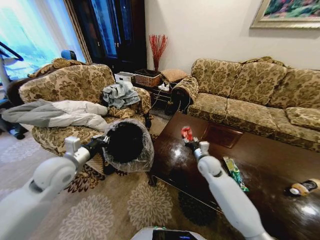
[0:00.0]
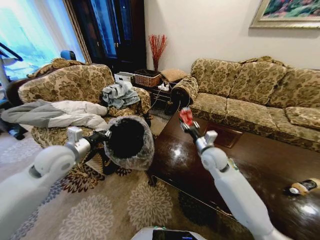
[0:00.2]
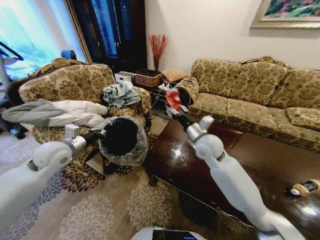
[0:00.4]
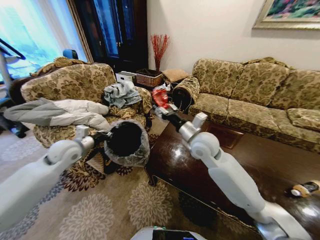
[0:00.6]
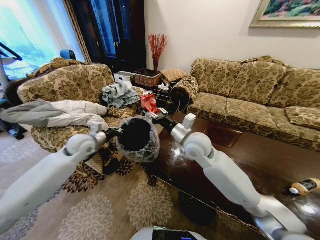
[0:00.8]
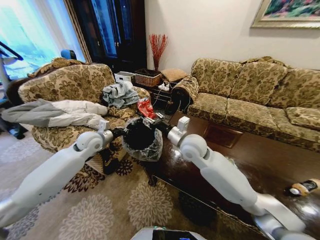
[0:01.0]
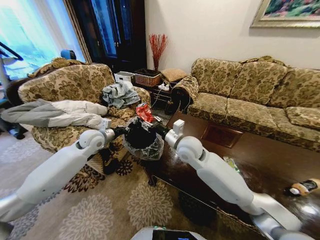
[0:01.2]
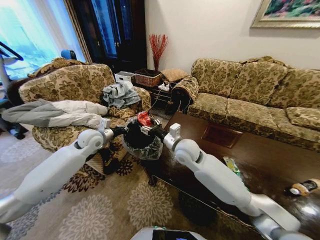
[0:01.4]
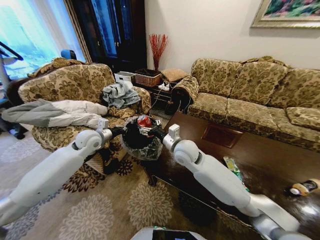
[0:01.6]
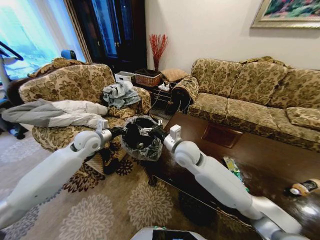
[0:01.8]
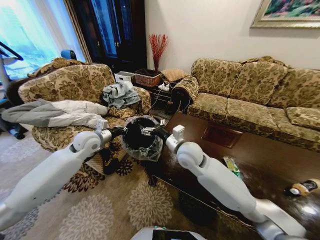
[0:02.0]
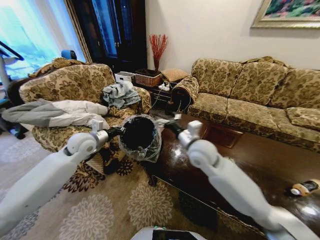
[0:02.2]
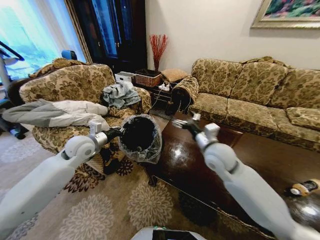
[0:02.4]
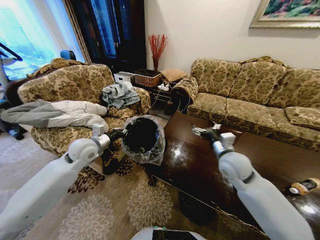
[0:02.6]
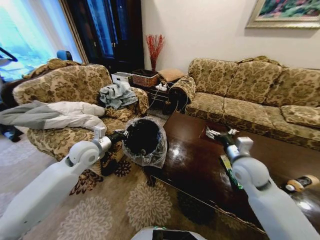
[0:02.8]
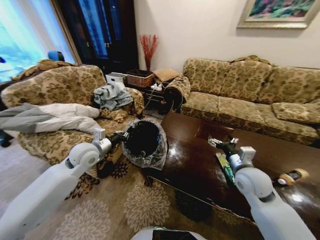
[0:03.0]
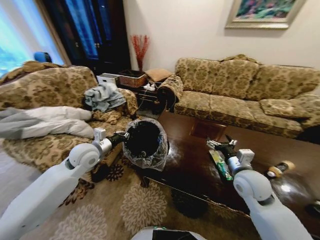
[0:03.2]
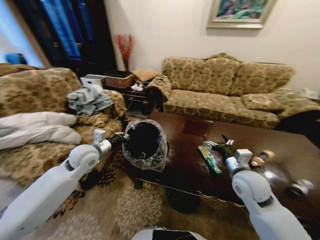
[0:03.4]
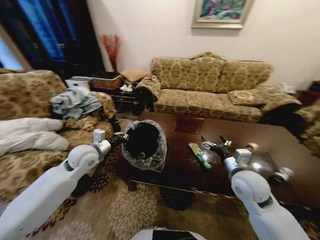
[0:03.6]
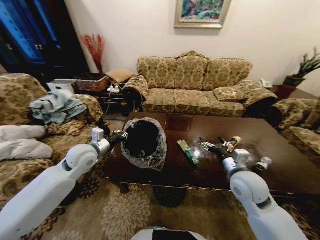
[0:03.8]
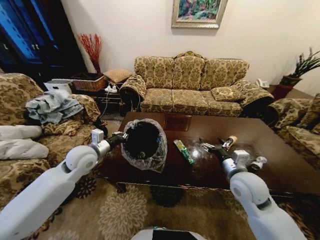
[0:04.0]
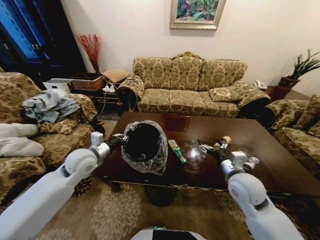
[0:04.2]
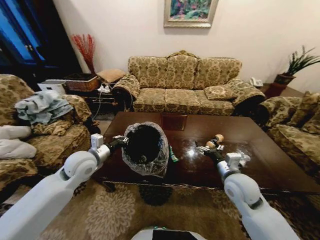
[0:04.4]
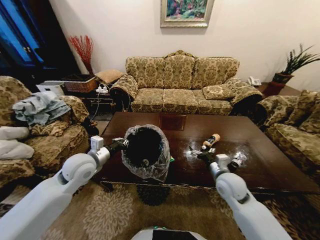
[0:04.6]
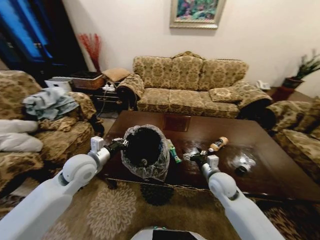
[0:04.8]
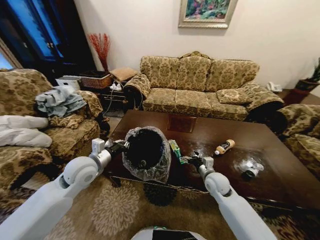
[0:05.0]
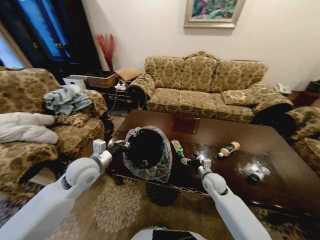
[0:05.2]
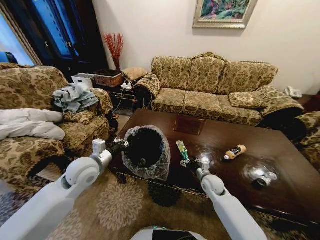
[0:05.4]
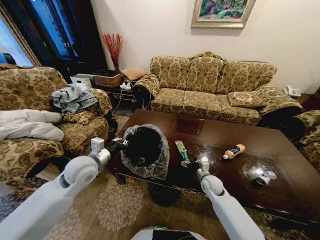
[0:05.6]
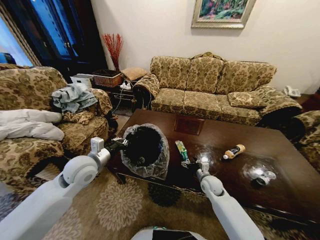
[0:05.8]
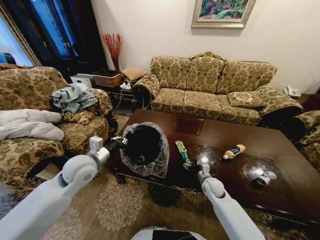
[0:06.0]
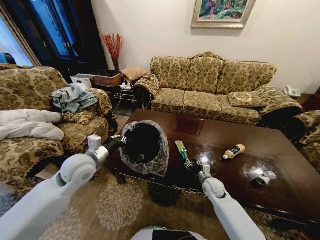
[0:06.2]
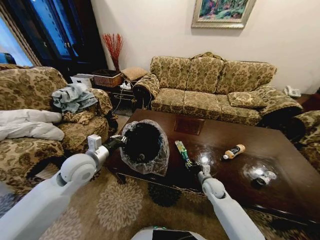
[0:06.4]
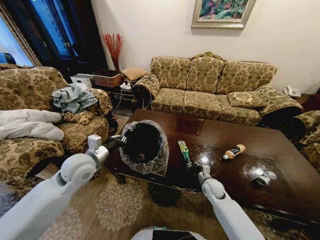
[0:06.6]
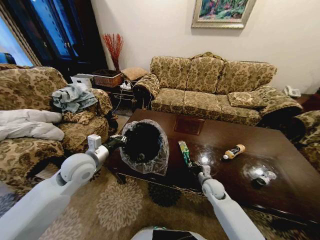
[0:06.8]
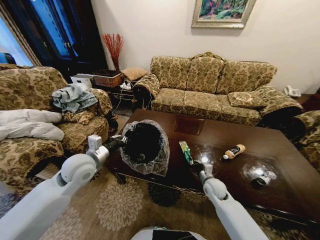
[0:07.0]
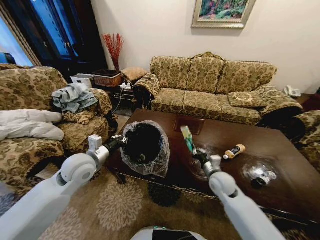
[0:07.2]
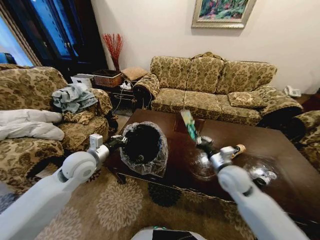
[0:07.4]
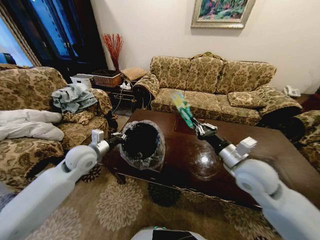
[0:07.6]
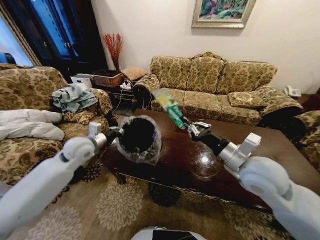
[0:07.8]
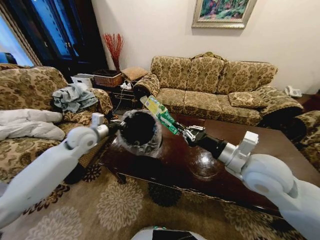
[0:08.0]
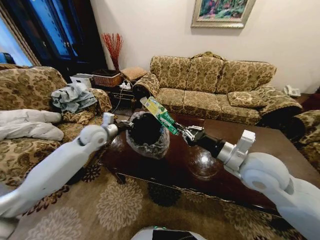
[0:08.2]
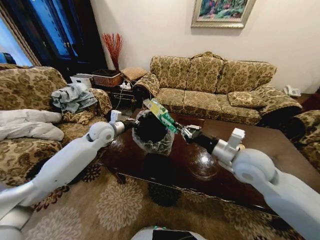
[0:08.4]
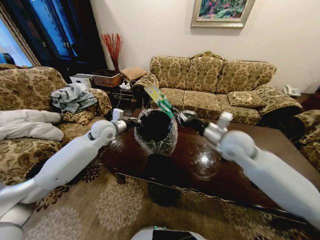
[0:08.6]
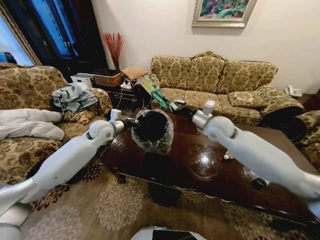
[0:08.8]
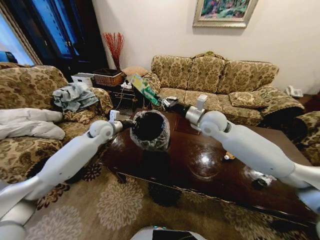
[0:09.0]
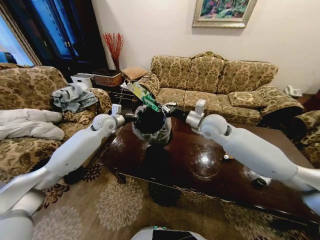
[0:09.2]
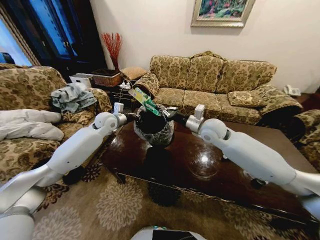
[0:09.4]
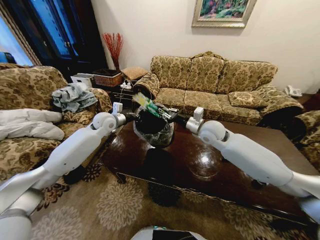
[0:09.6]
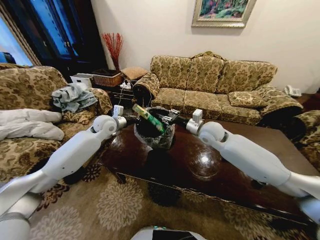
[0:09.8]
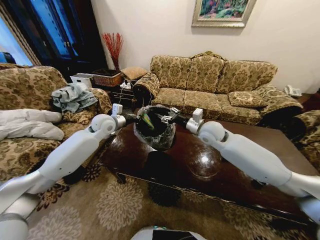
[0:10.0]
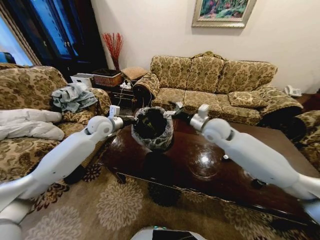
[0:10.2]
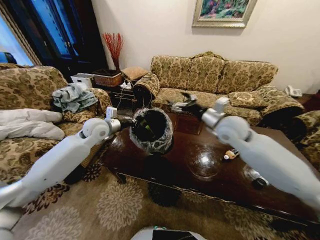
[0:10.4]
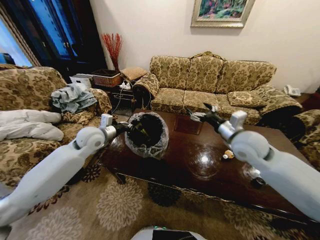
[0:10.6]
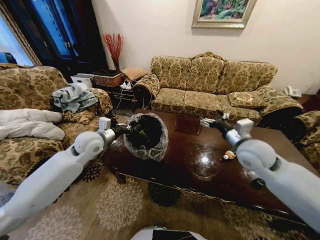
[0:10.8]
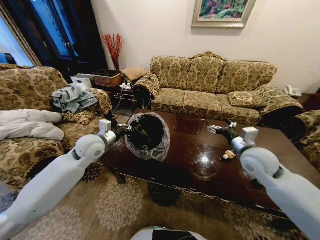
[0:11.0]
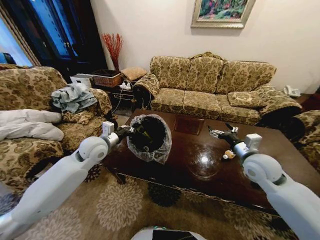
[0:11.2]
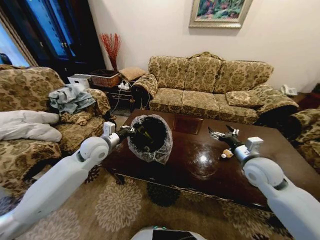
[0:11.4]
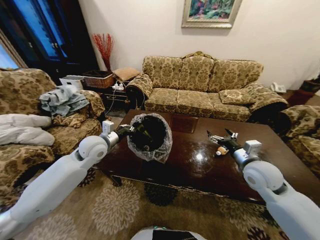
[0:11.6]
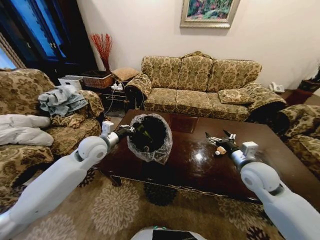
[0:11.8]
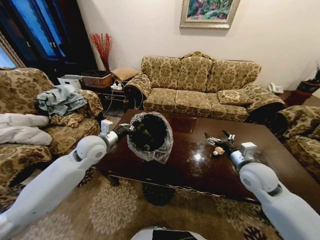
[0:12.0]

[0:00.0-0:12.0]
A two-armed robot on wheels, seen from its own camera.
Task of the whole recording: Move to the front of the table and place the trash on the table into the trash bin.
0.0 to 1.6 s: The left gripper goes roughly 15 cm forward. Meanwhile the right gripper goes about 20 cm to the left and upward, and opens.
1.6 to 3.0 s: The left gripper is displaced backward by some 5 cm. The right gripper travels to the right by some 25 cm.
4.4 to 6.0 s: The right gripper moves downward, approximately 20 cm.
6.0 to 7.6 s: The right gripper travels upward by about 25 cm, and closes its fingers.
7.6 to 9.0 s: The right gripper moves forward and to the left, approximately 20 cm, while the left gripper shifts about 15 cm forward.
9.0 to 10.4 s: The left gripper ends up roughly 5 cm from where it was, while the right gripper moves to the right and backward, some 10 cm, and opens.
10.4 to 12.0 s: The left gripper moves backward, roughly 5 cm. The right gripper travels downward, backward and to the right by some 20 cm.

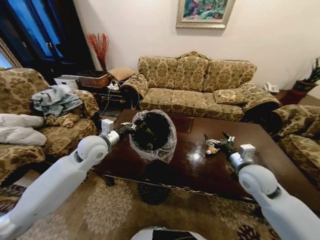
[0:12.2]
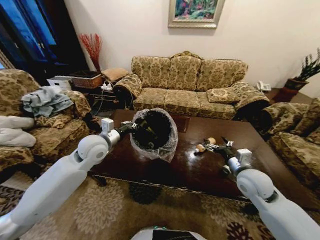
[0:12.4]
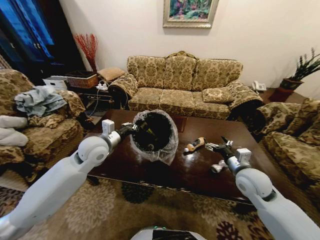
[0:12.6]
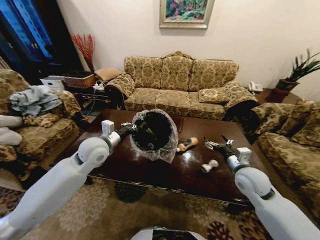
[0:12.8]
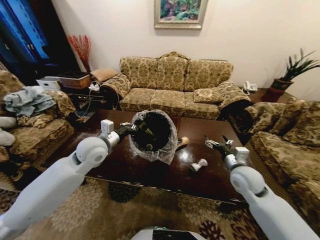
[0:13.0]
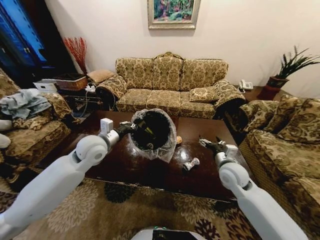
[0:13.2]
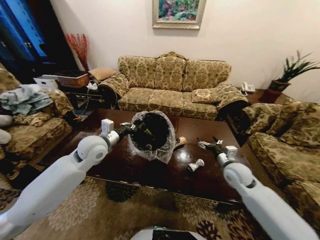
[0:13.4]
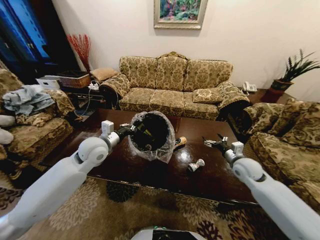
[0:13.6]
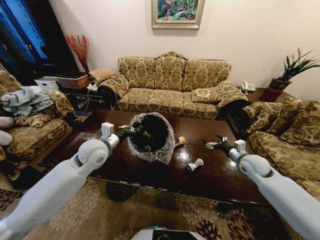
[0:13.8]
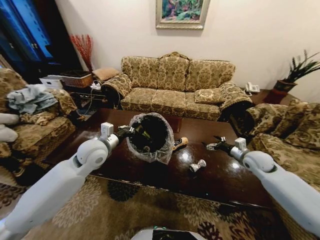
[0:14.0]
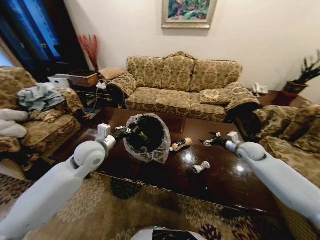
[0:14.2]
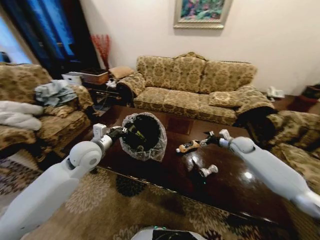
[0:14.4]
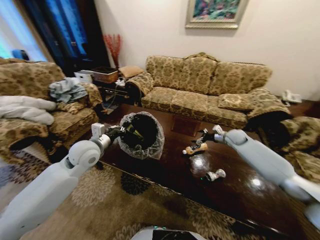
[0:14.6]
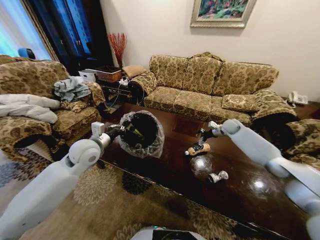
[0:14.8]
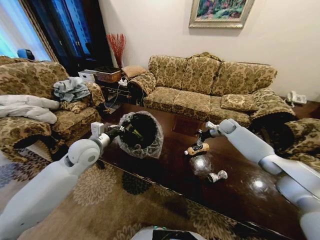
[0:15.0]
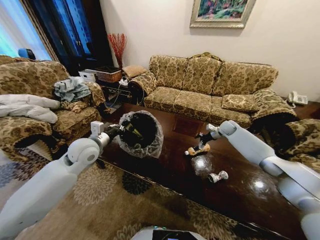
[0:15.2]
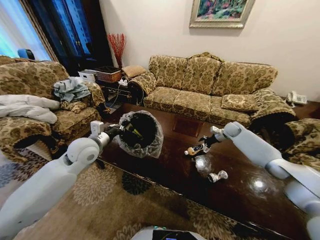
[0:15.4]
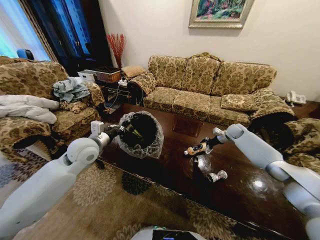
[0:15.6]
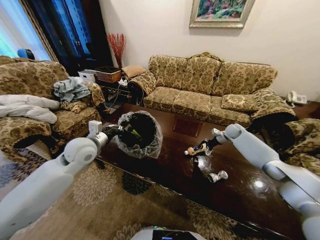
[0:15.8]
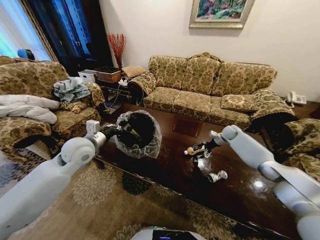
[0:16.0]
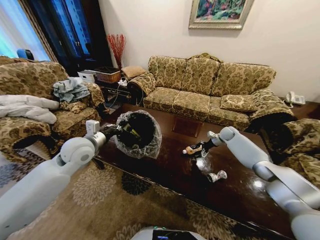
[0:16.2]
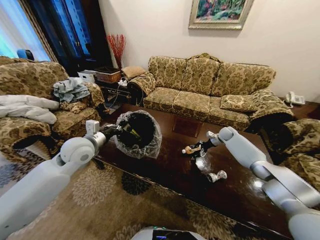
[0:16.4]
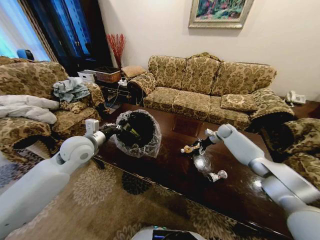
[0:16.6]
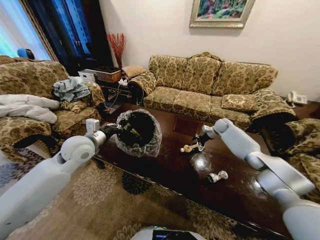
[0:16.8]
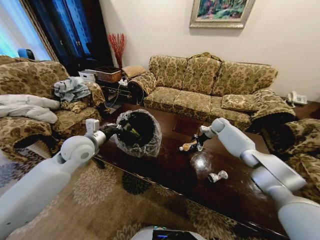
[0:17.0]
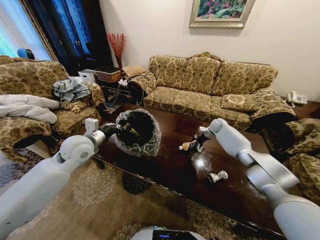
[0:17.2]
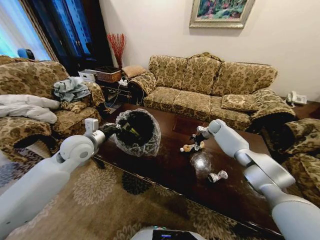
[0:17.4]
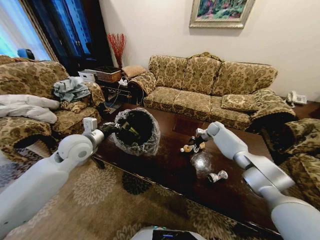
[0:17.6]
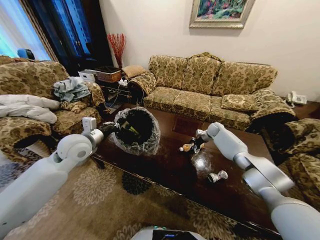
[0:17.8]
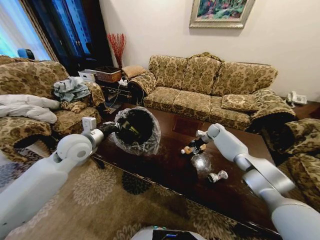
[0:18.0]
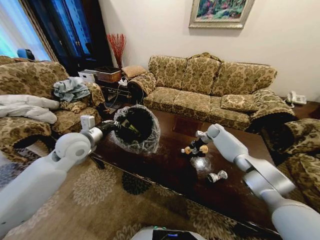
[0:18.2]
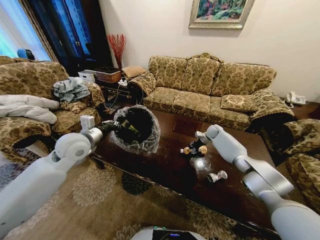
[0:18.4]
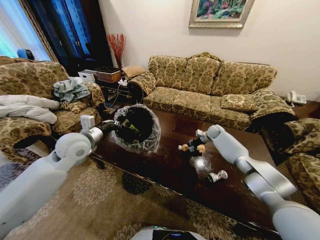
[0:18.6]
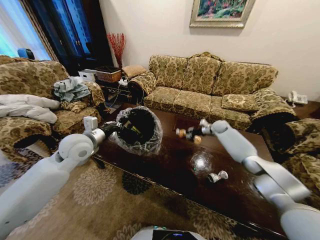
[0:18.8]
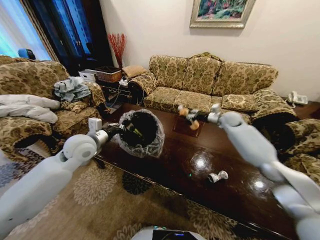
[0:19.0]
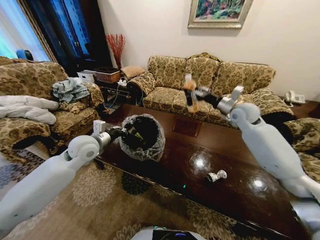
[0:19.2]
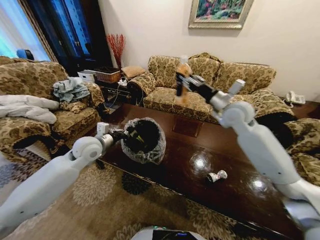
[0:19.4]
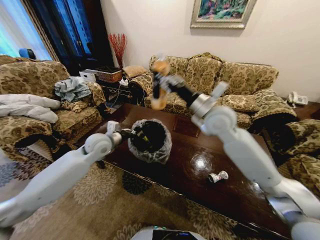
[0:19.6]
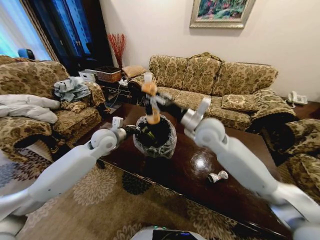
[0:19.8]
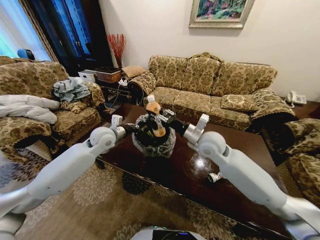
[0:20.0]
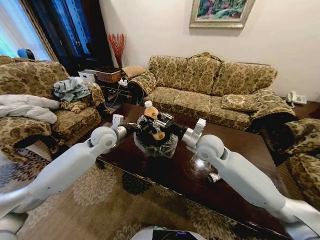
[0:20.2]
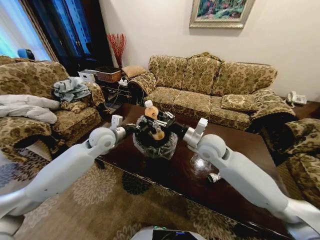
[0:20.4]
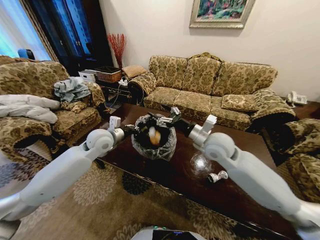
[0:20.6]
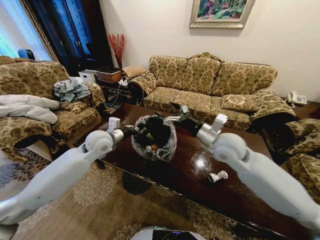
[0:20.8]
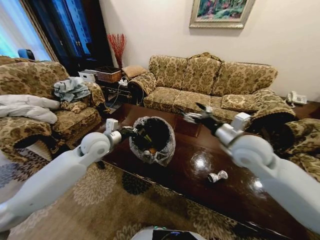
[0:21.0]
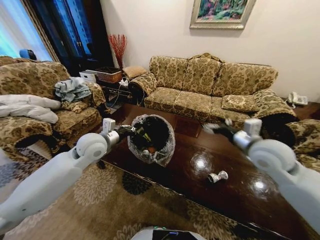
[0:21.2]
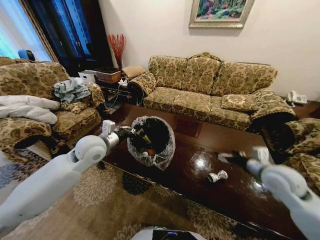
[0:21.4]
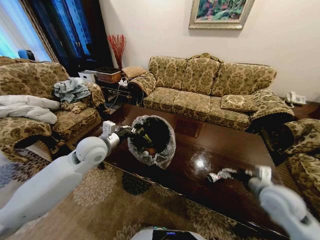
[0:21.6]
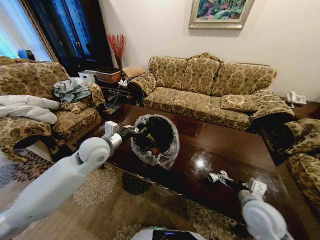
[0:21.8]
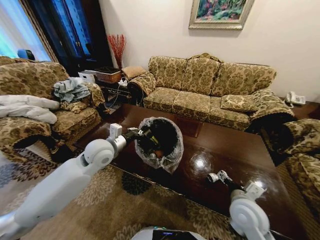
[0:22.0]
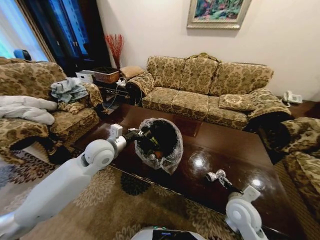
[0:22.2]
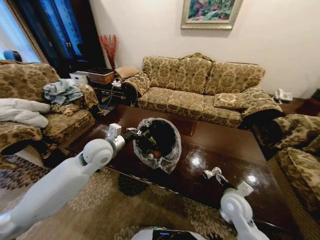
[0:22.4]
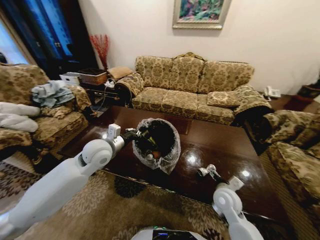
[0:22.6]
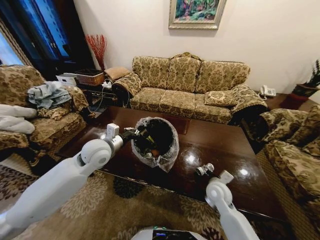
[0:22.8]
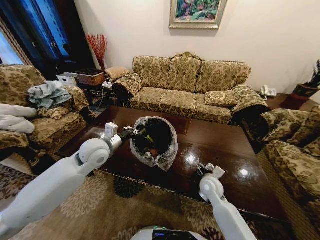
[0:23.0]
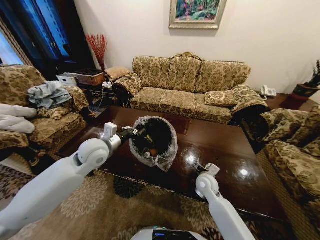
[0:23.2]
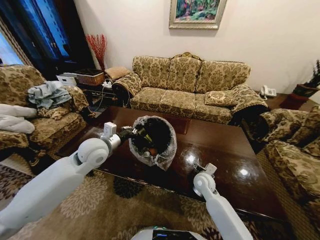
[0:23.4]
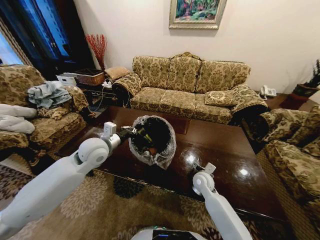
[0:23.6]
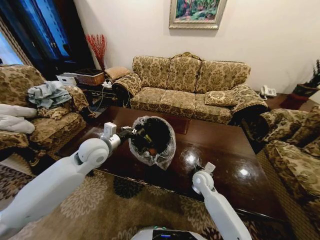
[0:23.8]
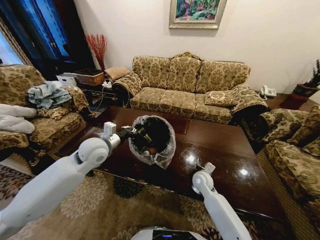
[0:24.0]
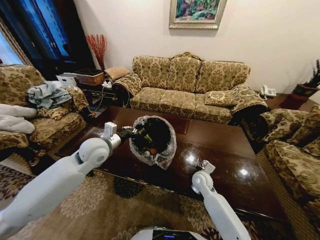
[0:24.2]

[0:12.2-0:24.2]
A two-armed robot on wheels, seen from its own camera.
Task of the whole recording: Move to the front of the table and place the trash on the table into the trash bin.
12.2 to 13.8 s: The right gripper heads forward, to the right and downward, covering some 10 cm.
13.8 to 15.2 s: The right gripper moves forward, approximately 25 cm.
15.2 to 16.6 s: The grippers make only small movements.
16.6 to 18.2 s: The right gripper shifts roughly 5 cm to the left, and closes.
18.2 to 19.8 s: The left gripper travels forward and to the right by about 10 cm. Meanwhile the right gripper shifts about 40 cm backward, upward and to the left.
19.8 to 21.2 s: The right gripper shifts roughly 20 cm to the right and backward, and opens up. Meanwhile the left gripper is displaced backward by approximately 5 cm.
21.2 to 22.6 s: The right gripper heads downward, covering some 25 cm.
22.6 to 24.2 s: The right gripper travels forward and to the left by roughly 10 cm, and closes.
